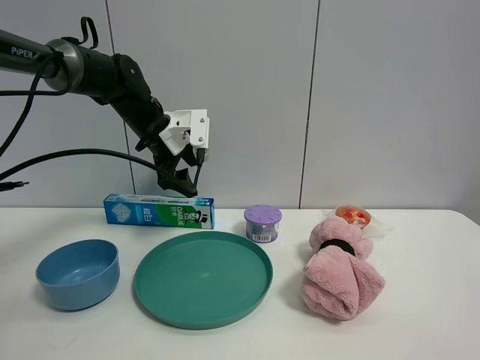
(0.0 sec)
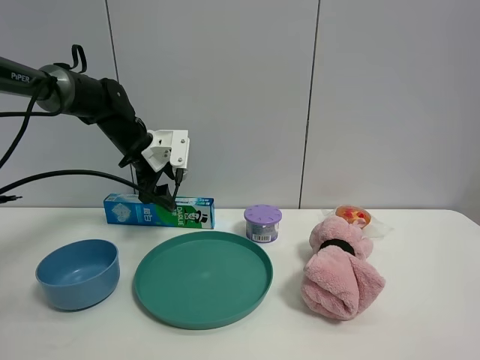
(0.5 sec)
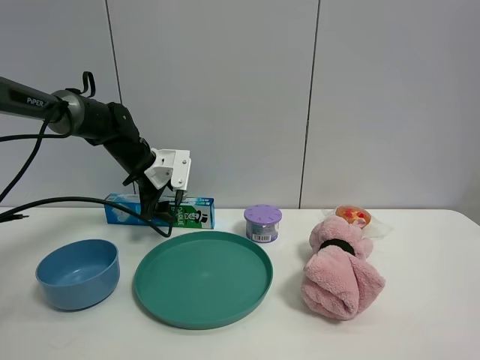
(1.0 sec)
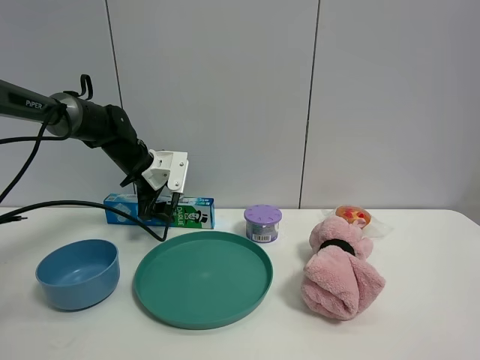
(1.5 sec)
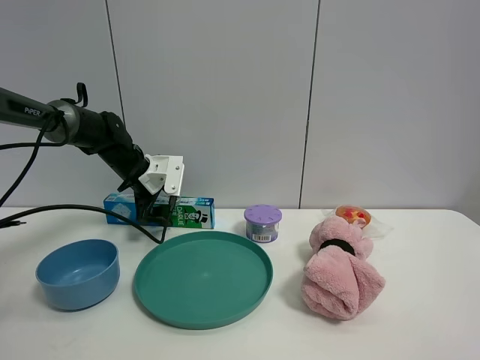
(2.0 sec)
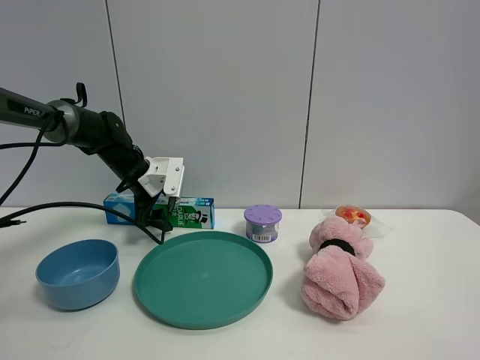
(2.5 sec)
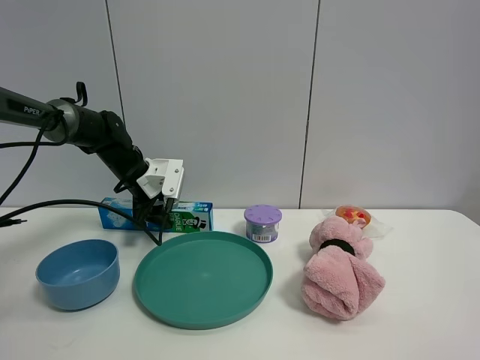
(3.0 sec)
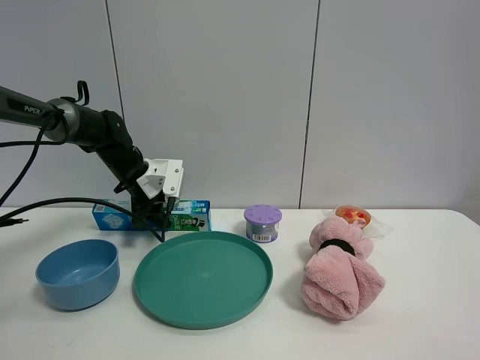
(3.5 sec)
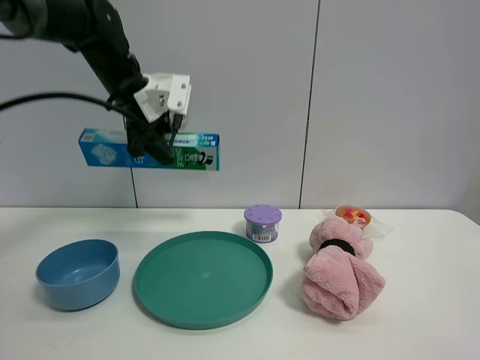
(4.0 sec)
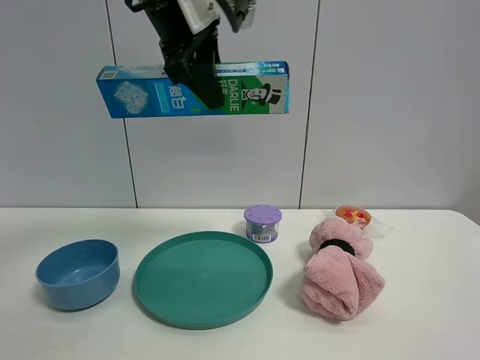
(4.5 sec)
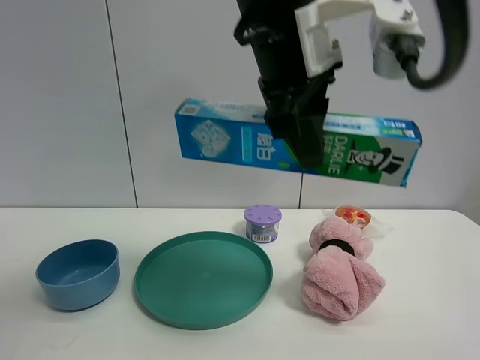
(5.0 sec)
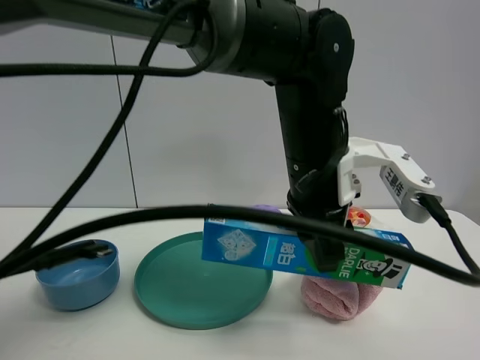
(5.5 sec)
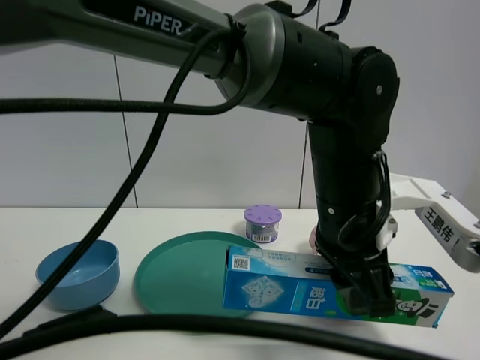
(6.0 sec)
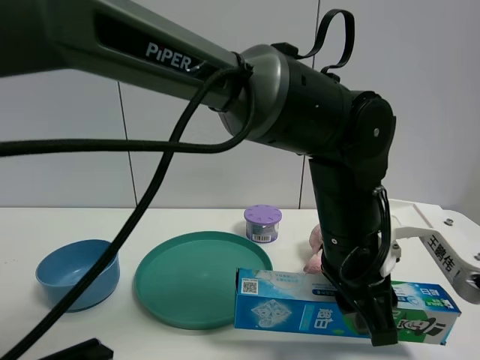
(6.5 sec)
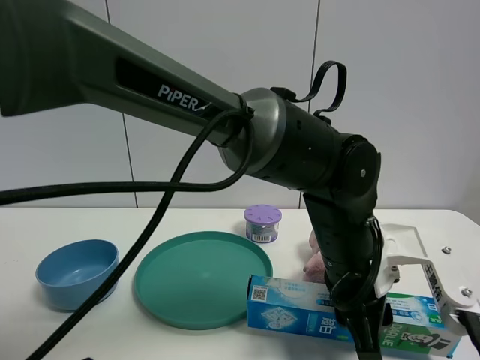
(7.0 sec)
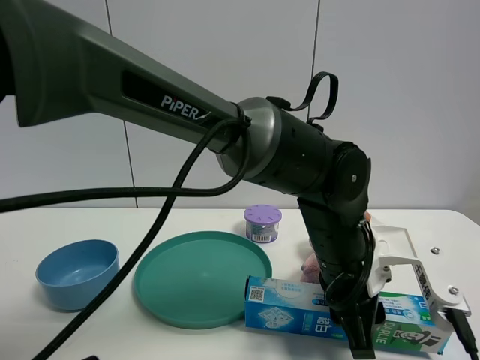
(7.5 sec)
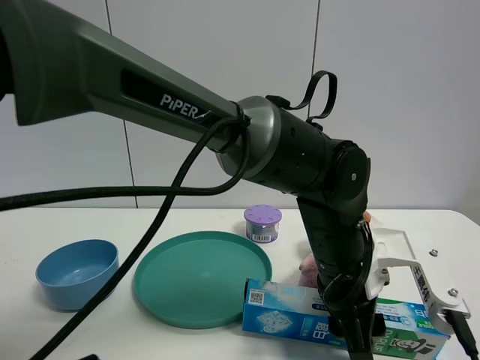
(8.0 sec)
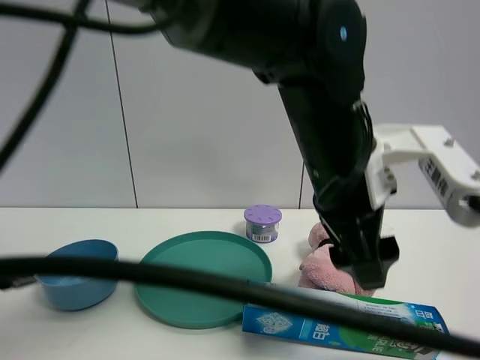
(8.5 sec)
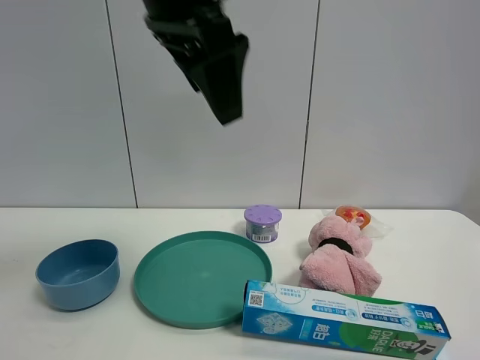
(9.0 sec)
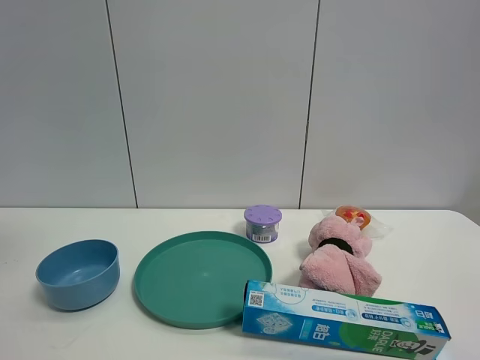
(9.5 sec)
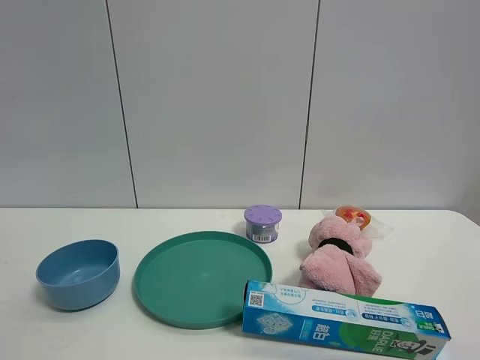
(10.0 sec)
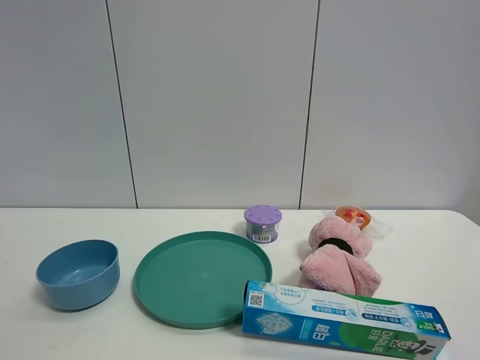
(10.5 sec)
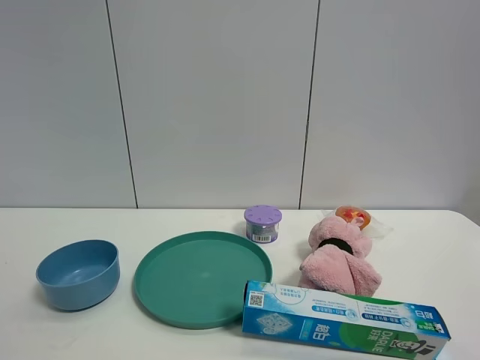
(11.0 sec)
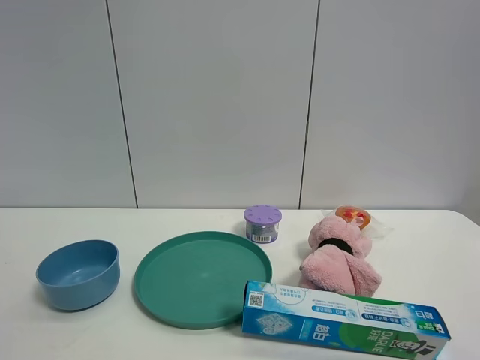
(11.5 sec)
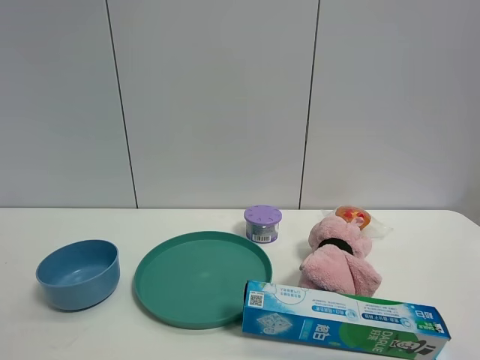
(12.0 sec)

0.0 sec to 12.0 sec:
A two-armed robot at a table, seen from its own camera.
Task of the whole recording: the gripper move the object.
Step, 0.0 sec to 3.5 sec: Grasp the toothpaste with the left gripper.
Step, 4.0 sec to 8.0 sec: Place the toothpaste on the table with the left gripper.
0.0 sec to 2.0 sec: The left gripper is displaced downward and to the left by some 10 cm.
2.0 sec to 4.0 sec: The left gripper shifts roughly 15 cm upward, and closes.
4.0 sec to 6.0 sec: The left gripper moves to the right and backward, some 35 cm.
6.0 sec to 8.0 sec: The left gripper travels downward by about 5 cm, and opens.
8.0 sec to 10.0 sec: The left gripper moves to the left, upward and backward, roughly 60 cm, and opens its fingers.

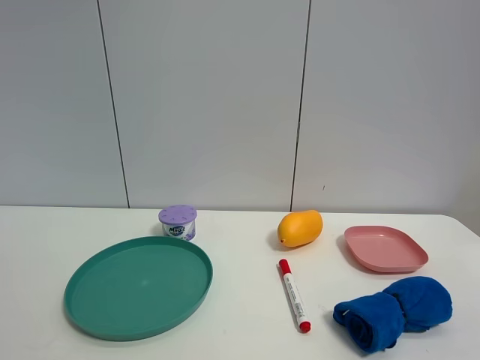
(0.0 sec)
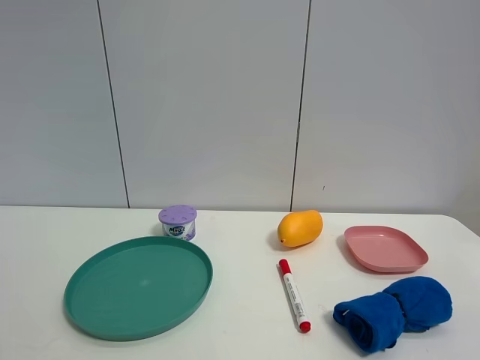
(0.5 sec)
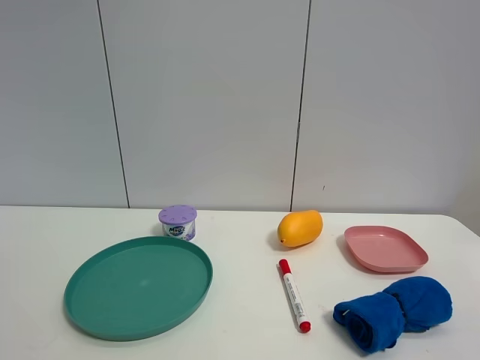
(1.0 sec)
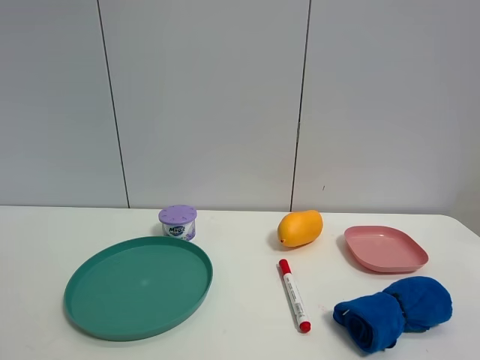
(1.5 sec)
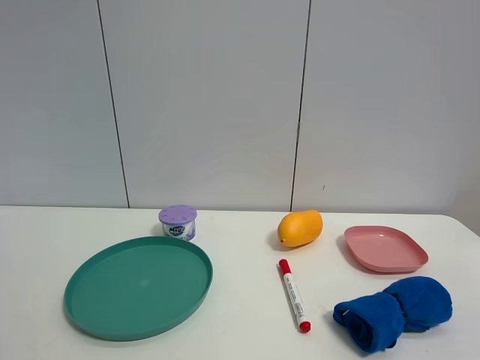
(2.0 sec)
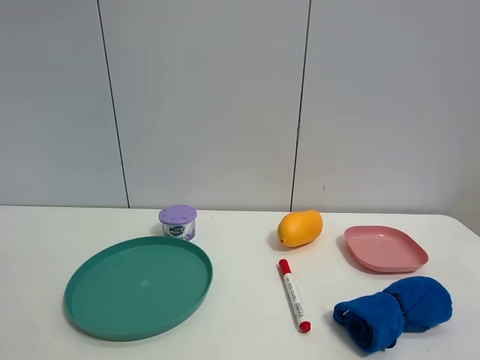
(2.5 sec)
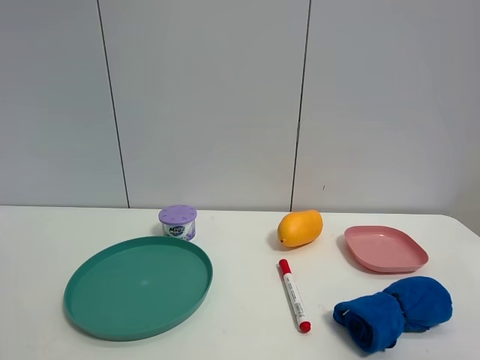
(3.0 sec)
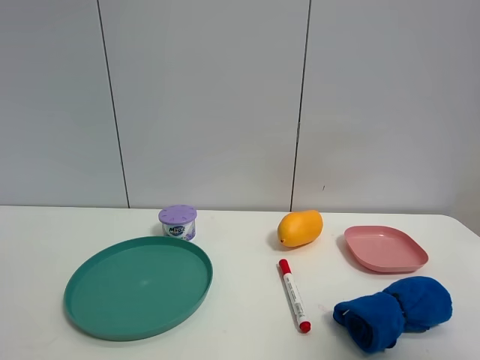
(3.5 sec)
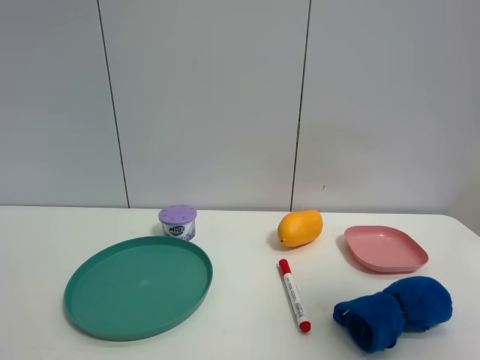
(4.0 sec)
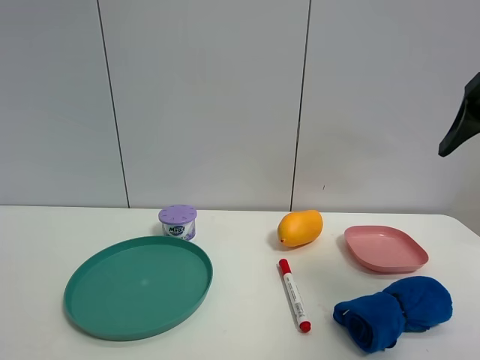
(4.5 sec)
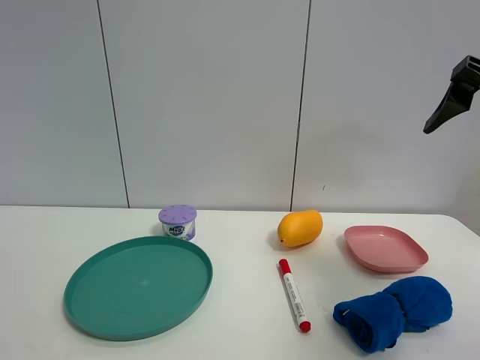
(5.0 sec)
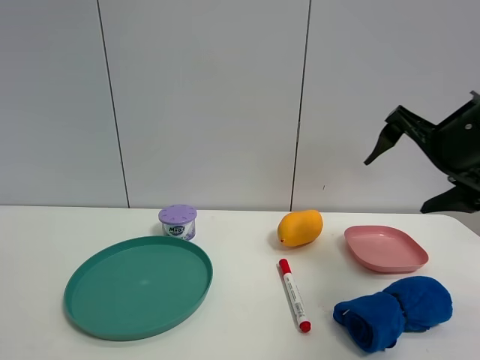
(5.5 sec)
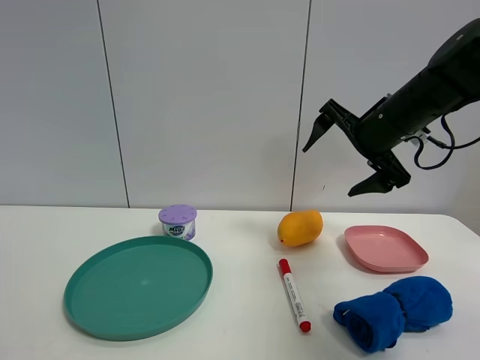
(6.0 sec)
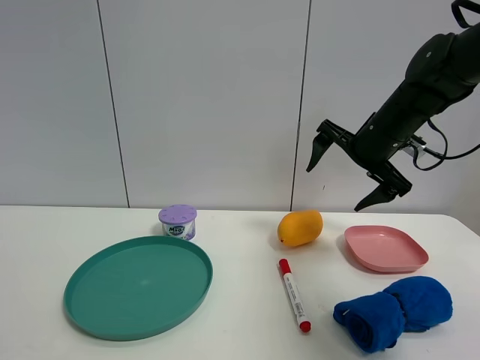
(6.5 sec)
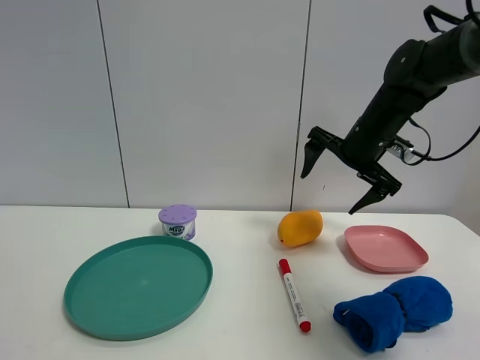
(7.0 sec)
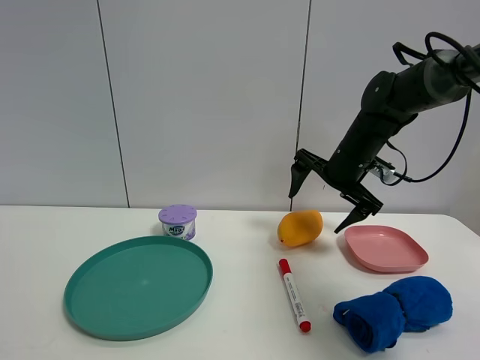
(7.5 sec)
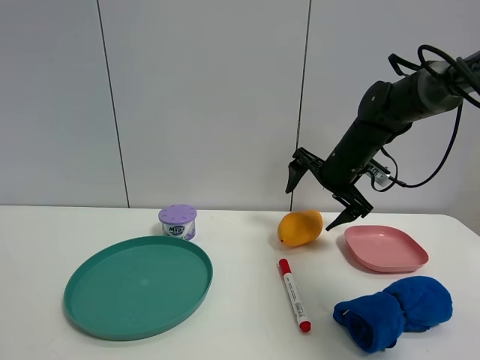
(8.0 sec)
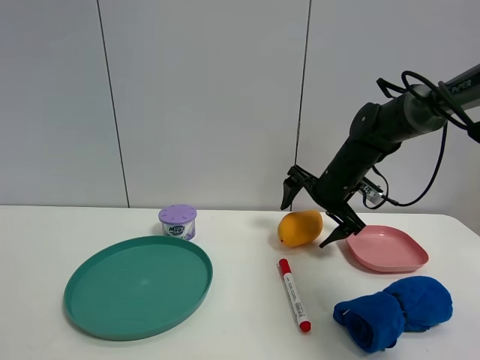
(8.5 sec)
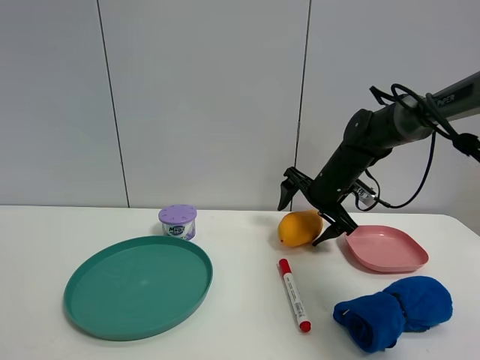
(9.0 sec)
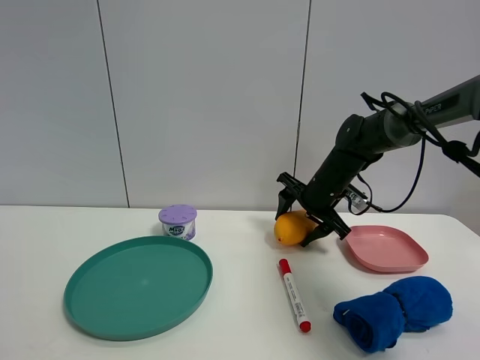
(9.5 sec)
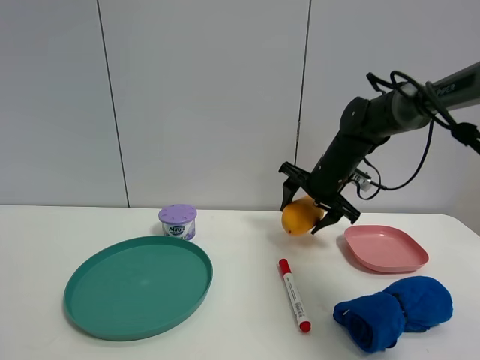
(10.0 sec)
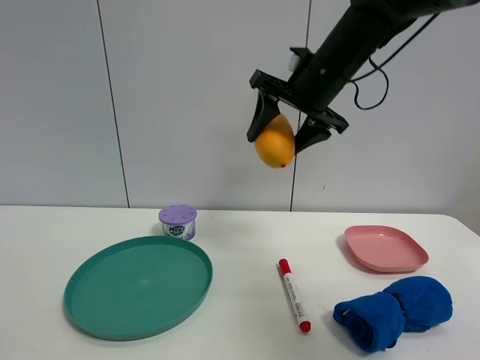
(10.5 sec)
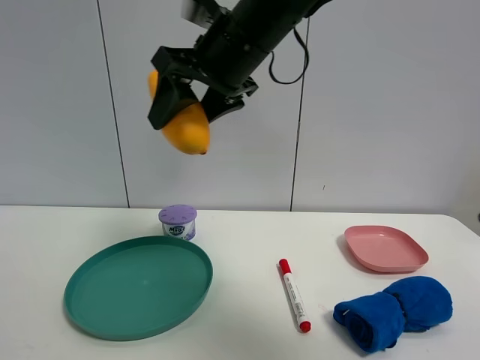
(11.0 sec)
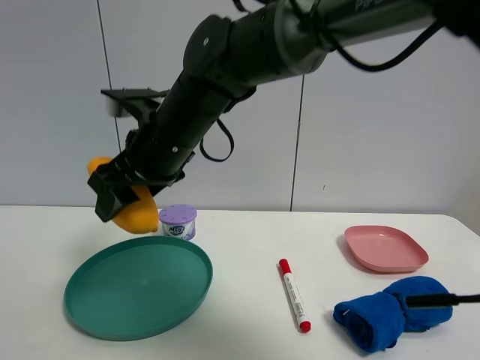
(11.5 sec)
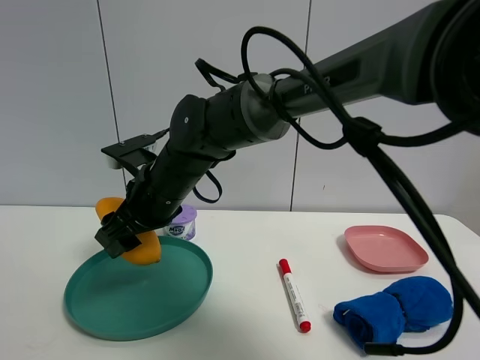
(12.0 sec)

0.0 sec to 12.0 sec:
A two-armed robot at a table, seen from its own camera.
Task of the whole recording: the gripper move the object.
Step, 0.0 sec to 9.5 sec: Grasp the mango with the right gripper.
0.0 sec to 2.0 sec: Neither gripper changes place.
2.0 sec to 4.0 sec: The right gripper heads forward and upward, covering roughly 20 cm.
4.0 sec to 6.0 sec: The right gripper is displaced forward and downward by some 30 cm.
6.0 sec to 8.0 sec: The right gripper heads forward and downward, covering roughly 10 cm.
8.0 sec to 10.0 sec: The right gripper closes its fingers.
10.0 sec to 12.0 sec: The right gripper heads to the left and backward, covering about 30 cm.

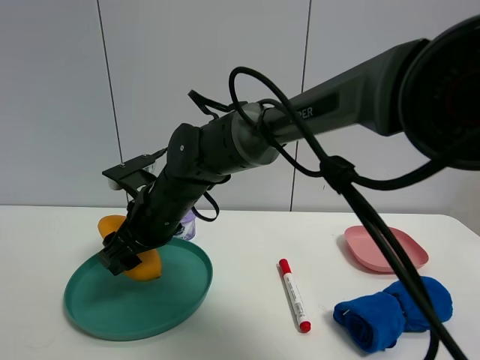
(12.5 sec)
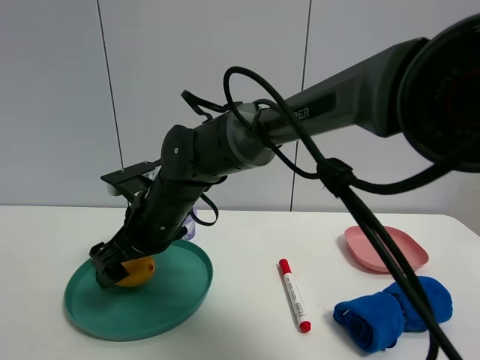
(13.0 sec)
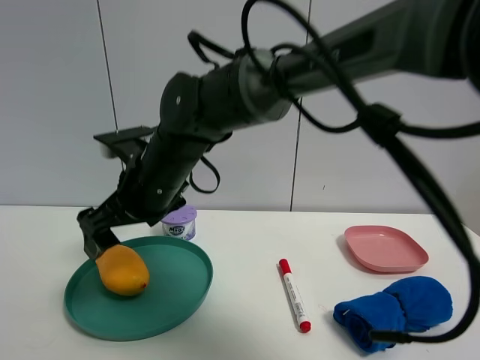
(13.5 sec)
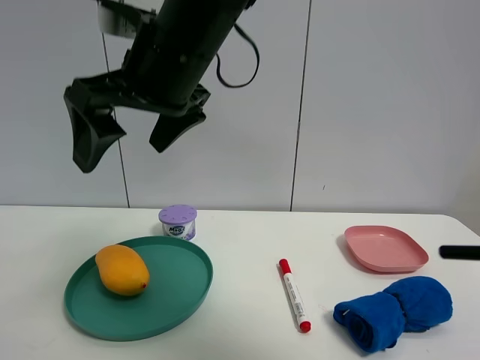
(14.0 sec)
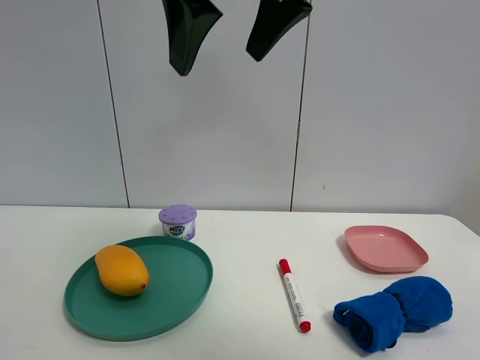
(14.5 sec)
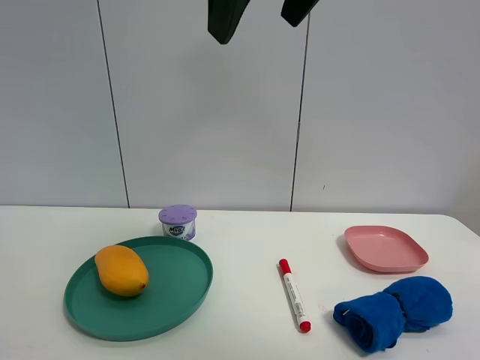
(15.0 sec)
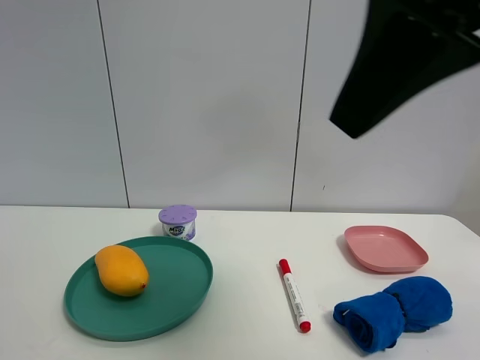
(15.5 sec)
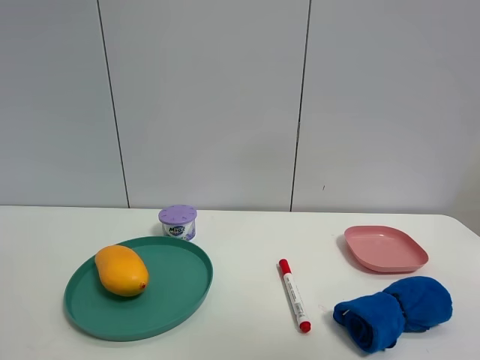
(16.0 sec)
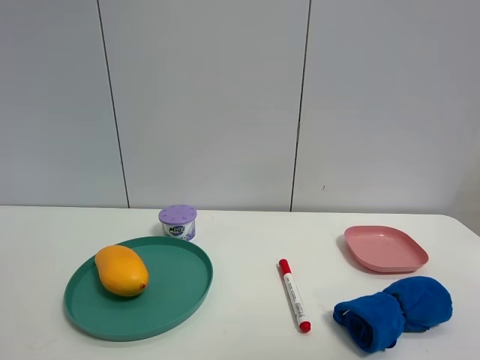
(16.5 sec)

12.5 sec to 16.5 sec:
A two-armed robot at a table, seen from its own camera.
Task of the whole recording: the gripper move the object.
12.5 sec to 14.5 sec: The right gripper is displaced upward and to the right by roughly 30 cm, and opens up.
14.5 sec to 16.5 sec: The right gripper heads to the right, backward and downward, covering approximately 30 cm.
